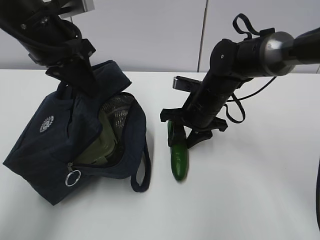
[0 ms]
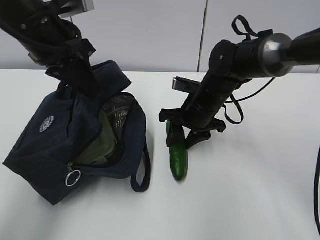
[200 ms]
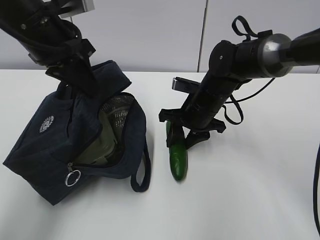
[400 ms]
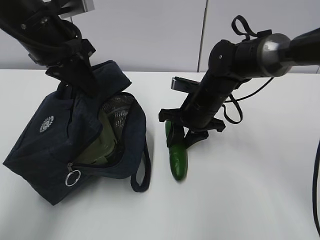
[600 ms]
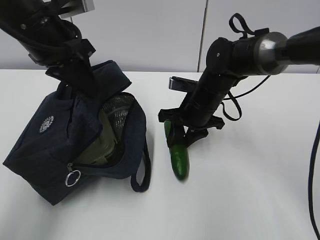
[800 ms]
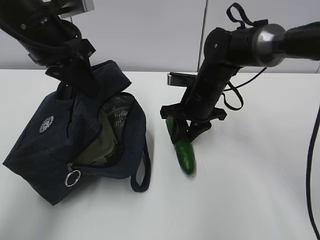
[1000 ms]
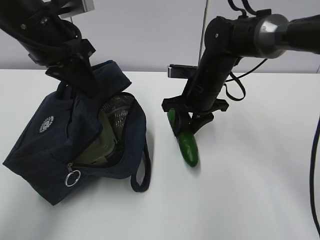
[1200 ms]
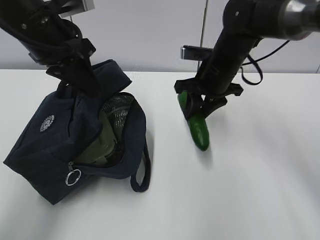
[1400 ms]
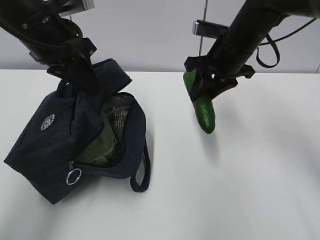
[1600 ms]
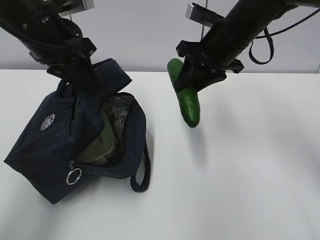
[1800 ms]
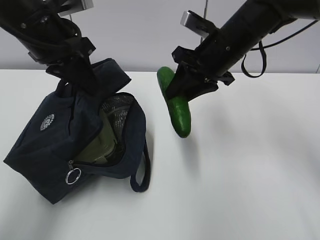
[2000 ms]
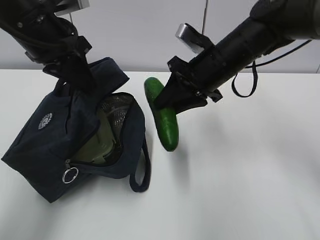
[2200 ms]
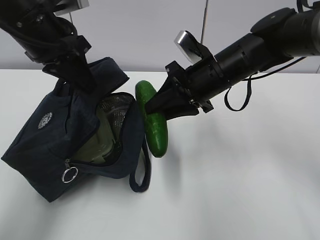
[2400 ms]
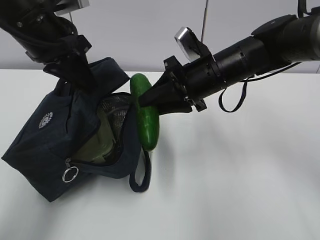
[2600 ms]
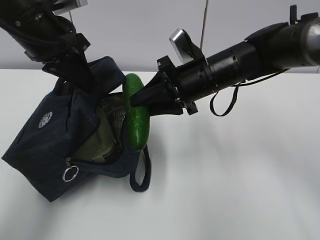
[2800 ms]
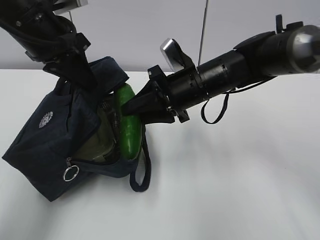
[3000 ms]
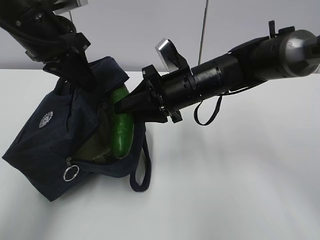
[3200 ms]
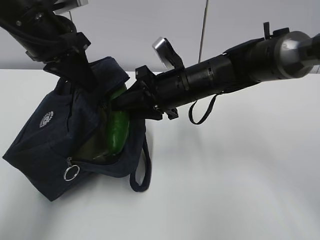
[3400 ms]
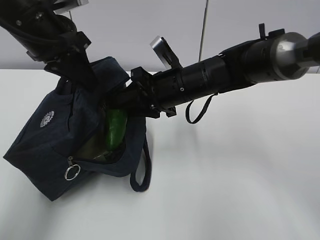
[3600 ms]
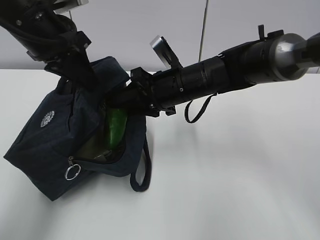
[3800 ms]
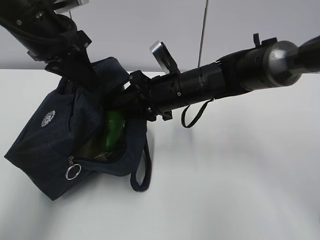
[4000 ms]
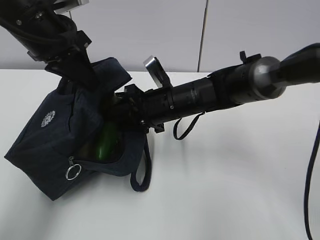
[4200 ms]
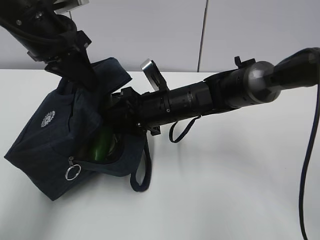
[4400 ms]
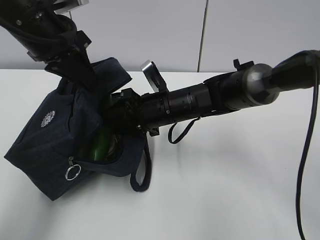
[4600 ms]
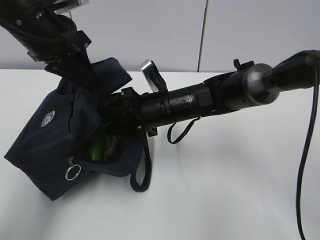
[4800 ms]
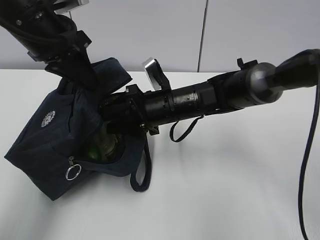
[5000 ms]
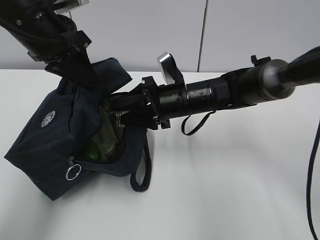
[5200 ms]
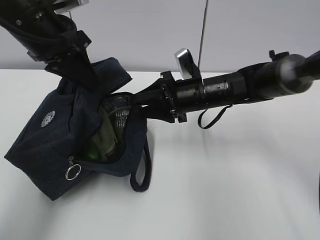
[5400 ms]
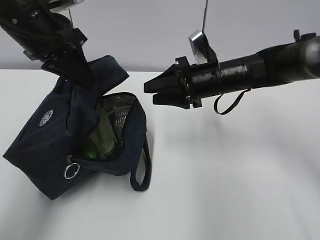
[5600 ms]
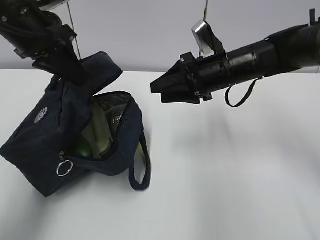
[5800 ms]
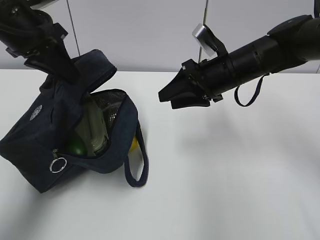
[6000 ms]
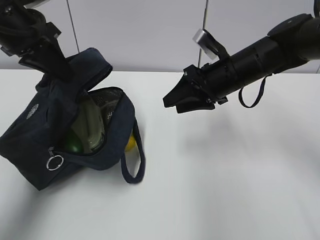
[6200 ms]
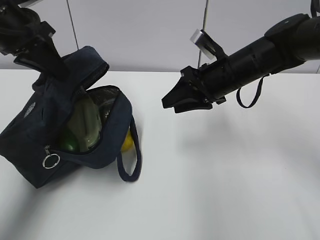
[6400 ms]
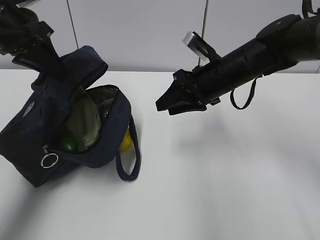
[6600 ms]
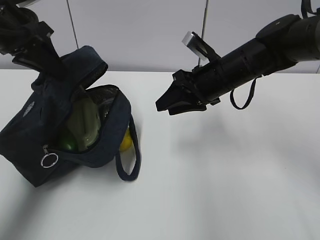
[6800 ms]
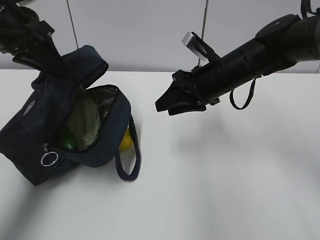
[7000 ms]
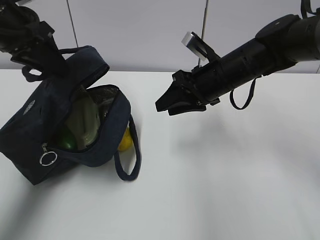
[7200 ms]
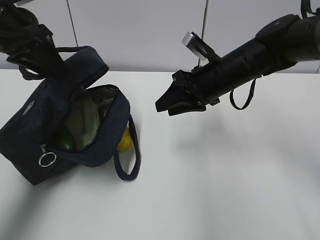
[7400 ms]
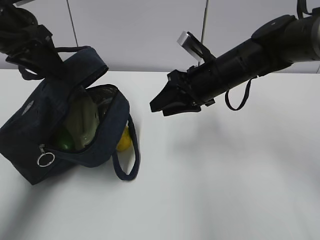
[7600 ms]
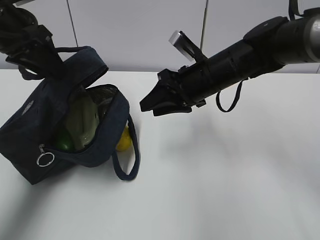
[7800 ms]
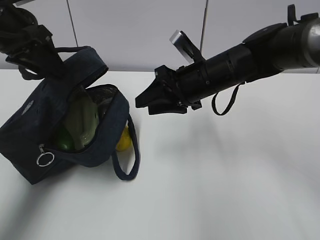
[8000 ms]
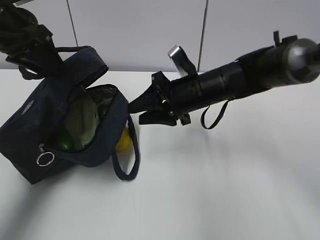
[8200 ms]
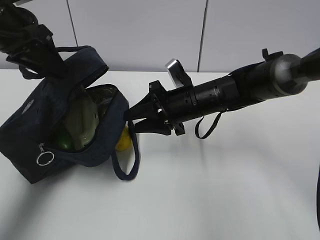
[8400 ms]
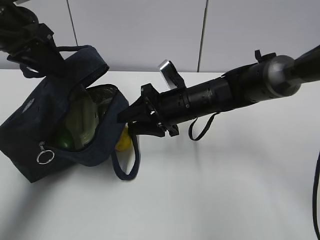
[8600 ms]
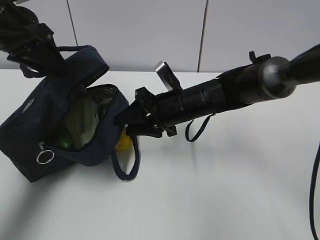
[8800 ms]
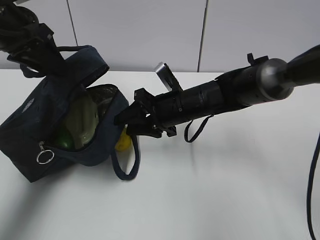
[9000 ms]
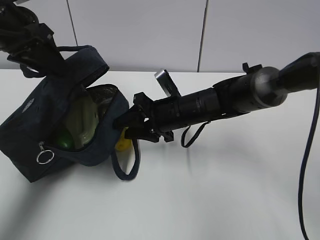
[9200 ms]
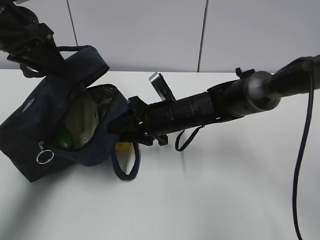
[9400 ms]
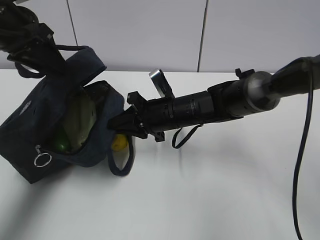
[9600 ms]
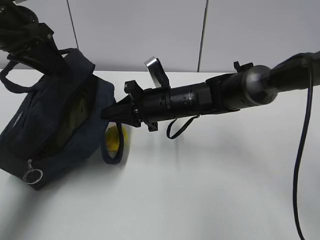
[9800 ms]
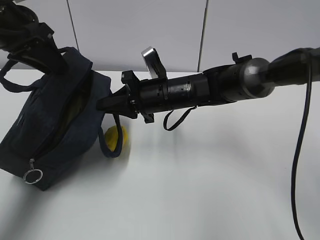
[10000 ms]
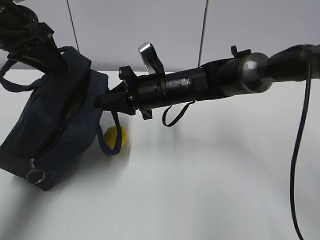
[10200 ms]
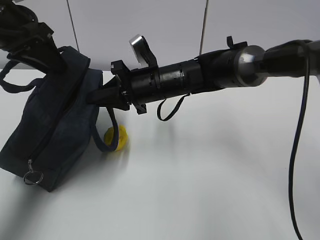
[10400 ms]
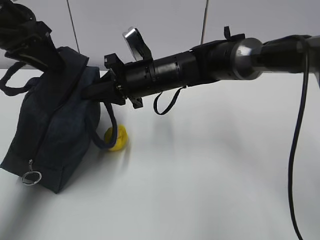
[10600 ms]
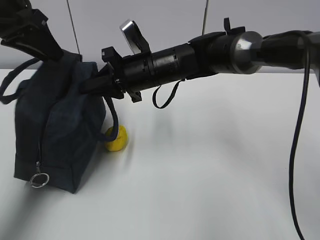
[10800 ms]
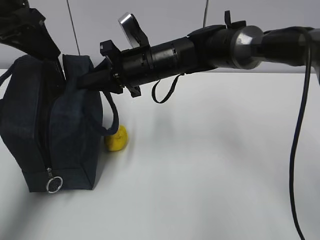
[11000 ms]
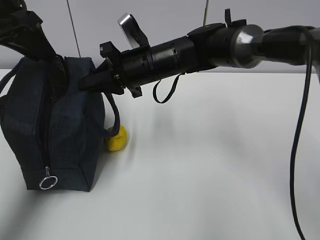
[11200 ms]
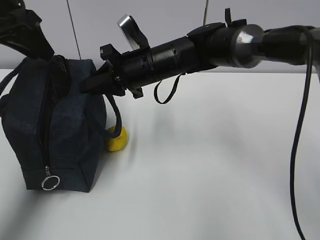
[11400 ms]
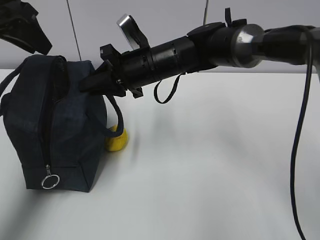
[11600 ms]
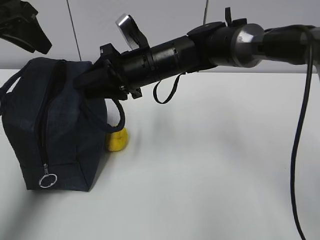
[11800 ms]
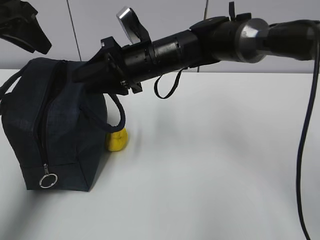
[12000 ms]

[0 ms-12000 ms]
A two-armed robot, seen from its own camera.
Step, 200 ms to 4000 ms: Grab the lunch bag with your right hand.
0 ms to 1600 ms: The right gripper shifts approximately 10 cm upward.
1600 ms to 3000 ms: The right gripper heads to the left, covering some 5 cm.
3000 ms to 4400 ms: The right gripper shifts roughly 5 cm downward.
4400 ms to 6000 ms: The right gripper shifts roughly 10 cm to the right and upward.
6000 ms to 7600 ms: The left gripper opens.
7600 ms to 9000 ms: The right gripper is displaced downward and to the left by roughly 10 cm.
9000 ms to 10400 ms: The right gripper moves some 5 cm, and closes its fingers.
10400 ms to 12000 ms: The right gripper opens up.

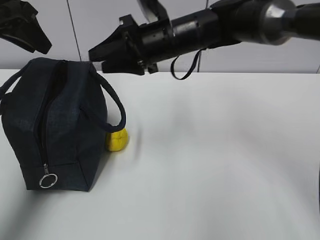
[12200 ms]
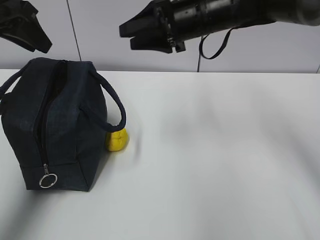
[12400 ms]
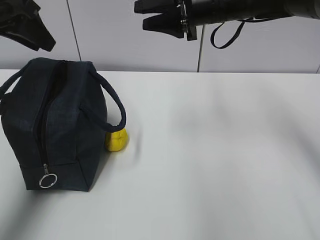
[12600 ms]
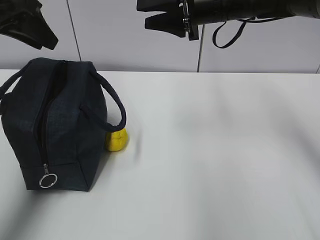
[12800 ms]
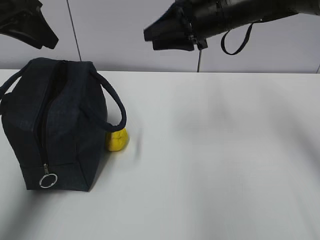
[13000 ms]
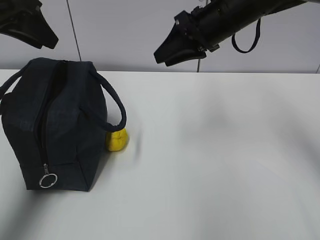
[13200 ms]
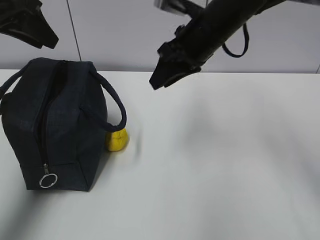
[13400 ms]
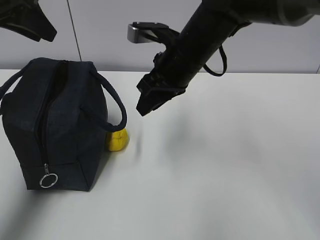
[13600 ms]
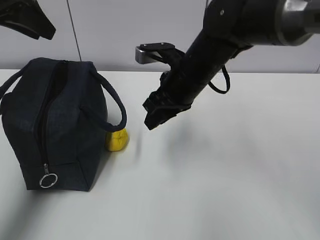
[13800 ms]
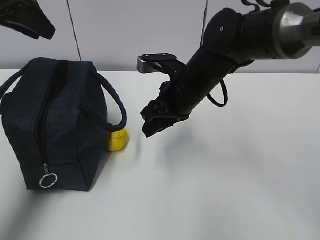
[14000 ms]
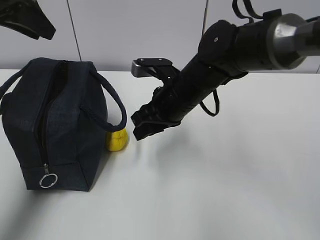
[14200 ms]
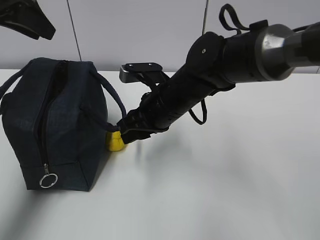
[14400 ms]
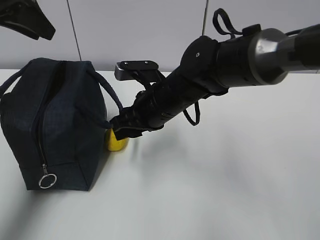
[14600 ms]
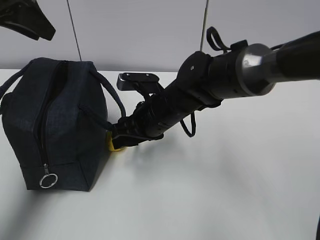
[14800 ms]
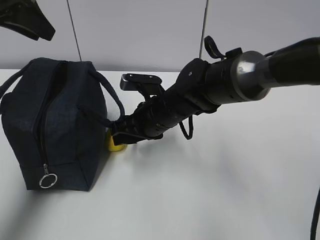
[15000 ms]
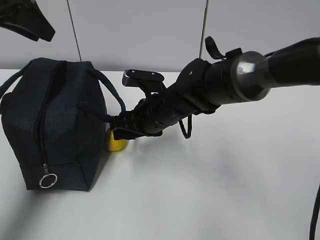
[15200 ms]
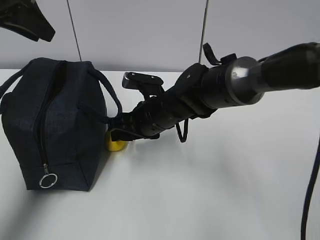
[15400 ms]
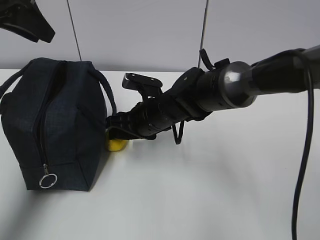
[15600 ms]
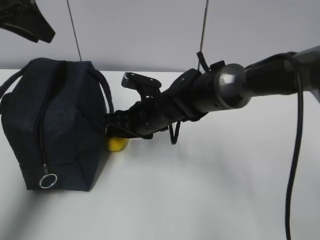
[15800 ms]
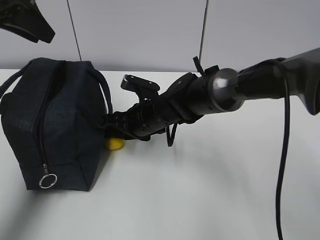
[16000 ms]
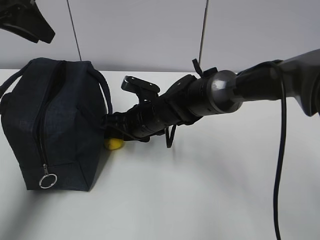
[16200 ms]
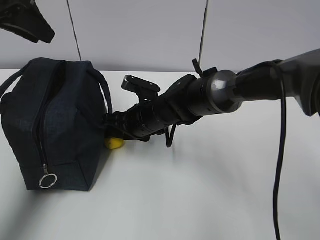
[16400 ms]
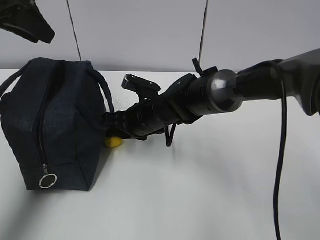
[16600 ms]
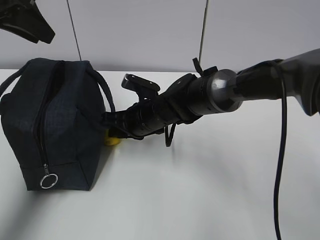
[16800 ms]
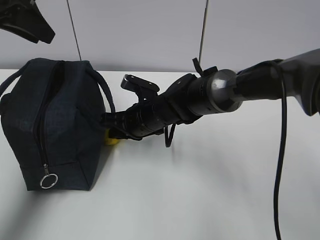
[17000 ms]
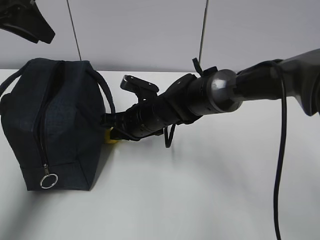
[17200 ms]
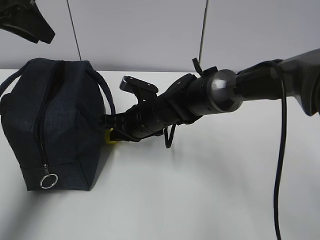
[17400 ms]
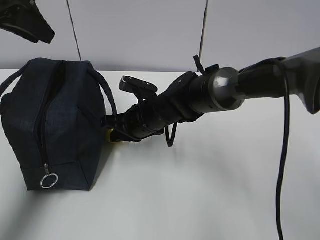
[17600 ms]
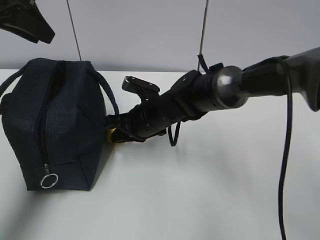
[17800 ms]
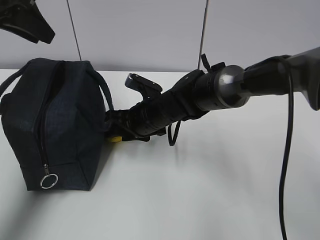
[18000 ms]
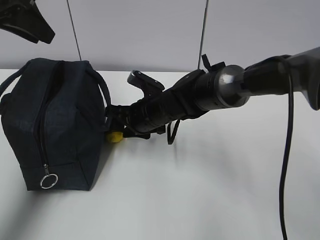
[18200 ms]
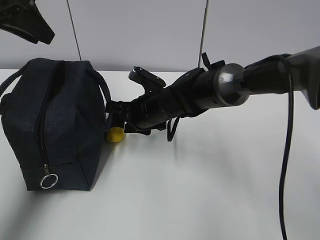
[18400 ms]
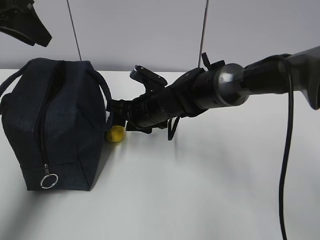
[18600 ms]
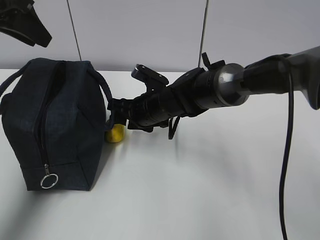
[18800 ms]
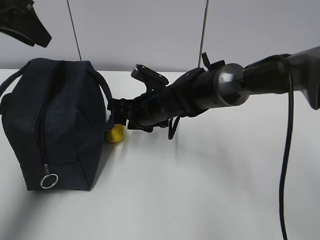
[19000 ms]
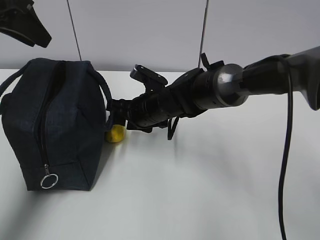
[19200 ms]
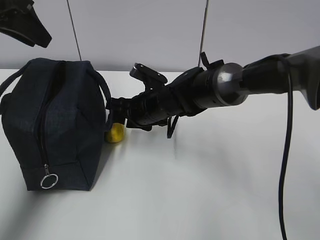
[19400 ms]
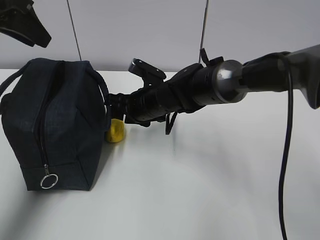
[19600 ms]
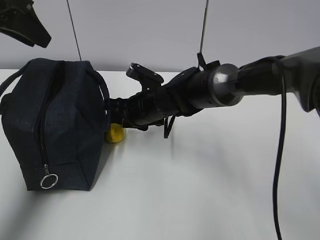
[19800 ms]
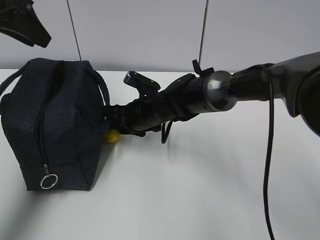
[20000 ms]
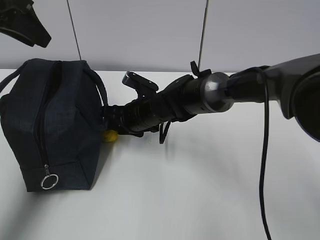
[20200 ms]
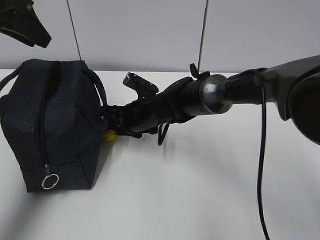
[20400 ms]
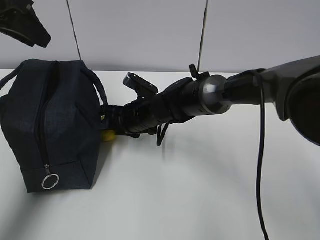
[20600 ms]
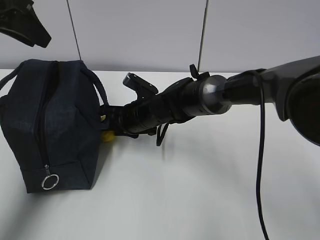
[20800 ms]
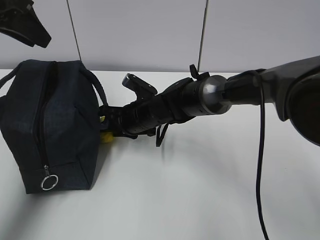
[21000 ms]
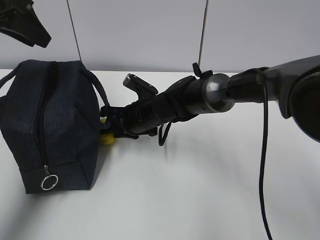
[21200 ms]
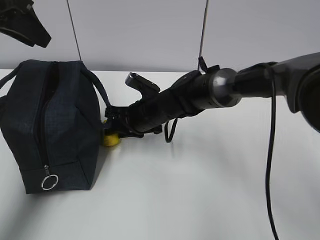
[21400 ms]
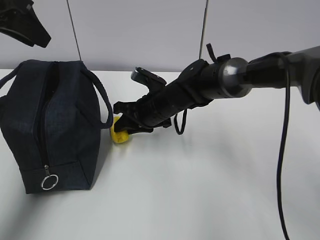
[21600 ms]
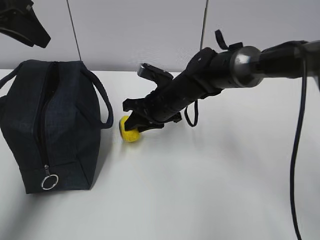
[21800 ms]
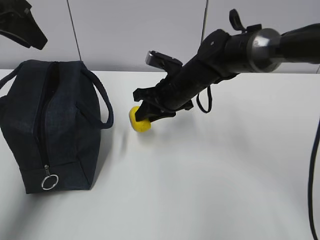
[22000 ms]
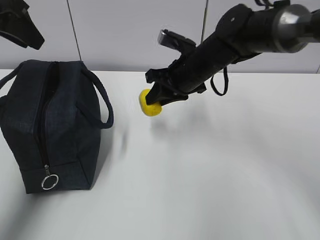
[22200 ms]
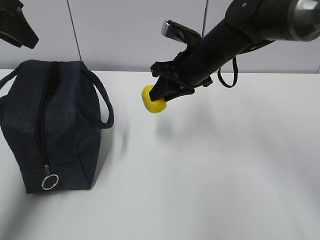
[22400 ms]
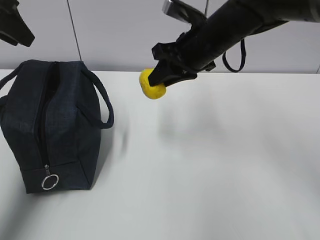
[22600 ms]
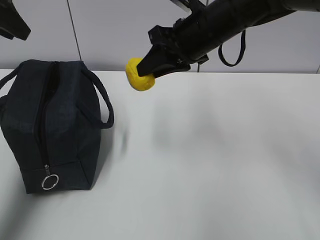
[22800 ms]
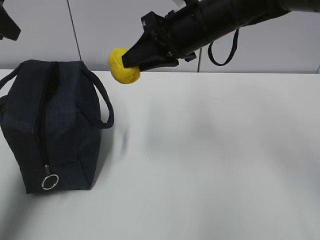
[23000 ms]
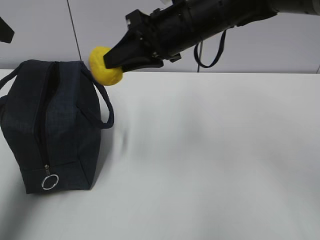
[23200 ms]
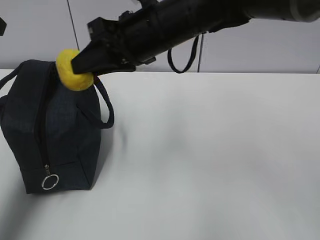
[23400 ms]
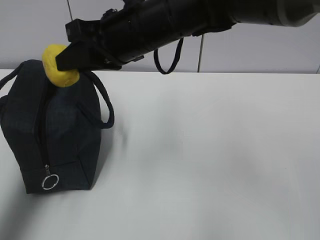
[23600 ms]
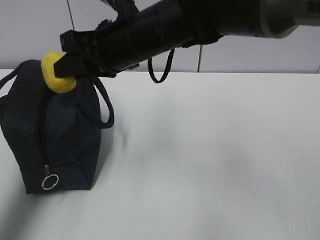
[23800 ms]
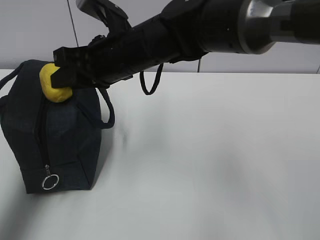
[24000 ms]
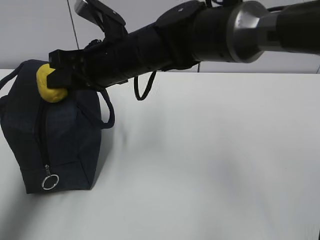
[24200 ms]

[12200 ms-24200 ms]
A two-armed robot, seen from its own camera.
Step, 13800 ms to 17800 ms: Place it into the bag with your right hand.
Step, 18000 ms to 20800 ms: Grab the lunch bag with your right hand.
Step, 21000 ms to 23600 ms: Move the lunch bag to the right.
12200 ms to 13800 ms: The right gripper ends up roughly 5 cm from where it was.
13800 ms to 15200 ms: The right gripper travels downward by approximately 5 cm.
15200 ms to 16600 ms: The grippers stay close to where they were, moving slightly.
16600 ms to 18200 ms: The right gripper closes, then reopens.
18200 ms to 21200 ms: The grippers stay close to where they were, moving slightly.
21200 ms to 22600 ms: The right gripper travels upward and to the right by approximately 20 cm.
22600 ms to 24200 ms: The right gripper moves to the left, about 15 cm. Meanwhile the left gripper shifts roughly 10 cm backward.
